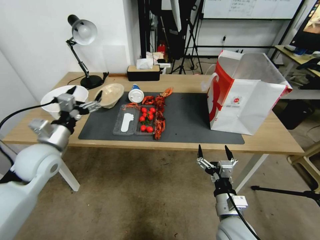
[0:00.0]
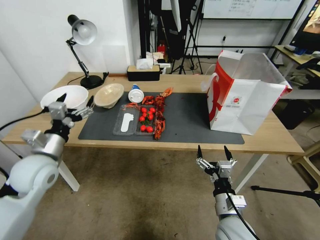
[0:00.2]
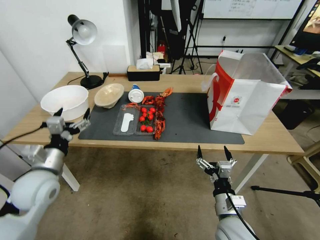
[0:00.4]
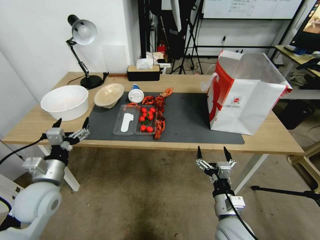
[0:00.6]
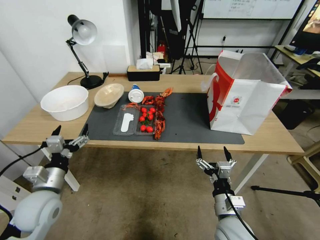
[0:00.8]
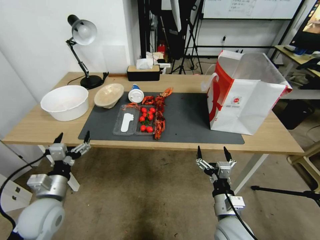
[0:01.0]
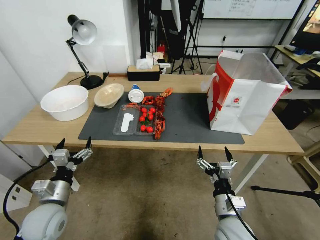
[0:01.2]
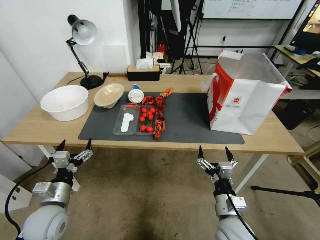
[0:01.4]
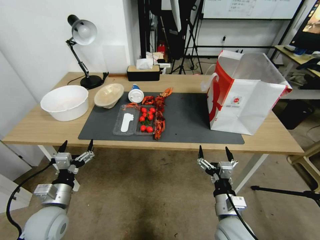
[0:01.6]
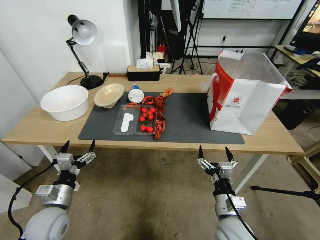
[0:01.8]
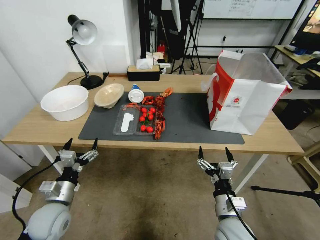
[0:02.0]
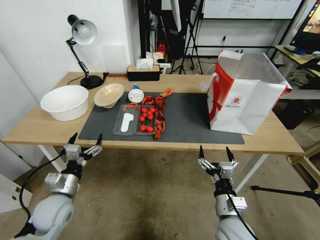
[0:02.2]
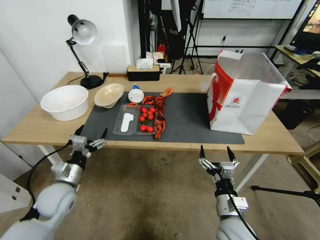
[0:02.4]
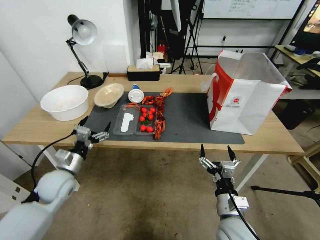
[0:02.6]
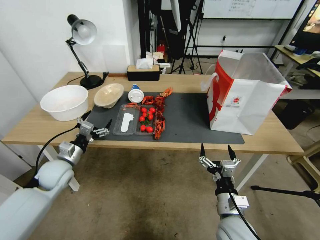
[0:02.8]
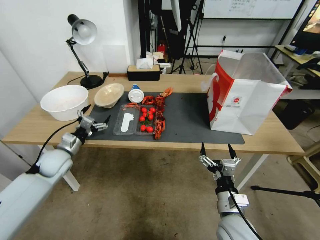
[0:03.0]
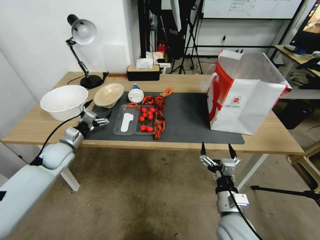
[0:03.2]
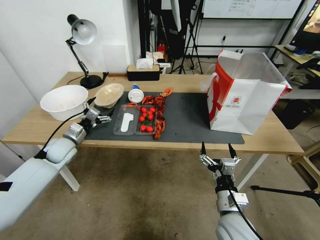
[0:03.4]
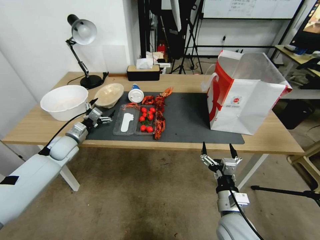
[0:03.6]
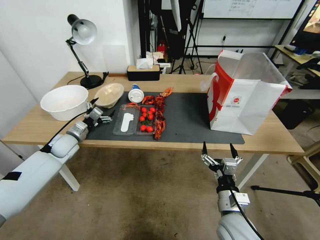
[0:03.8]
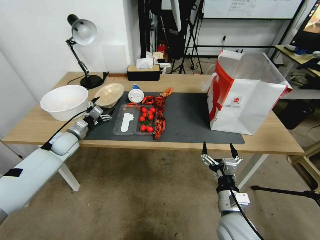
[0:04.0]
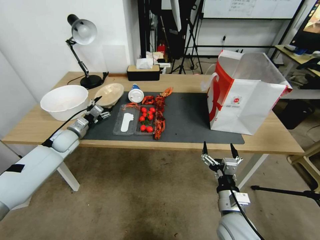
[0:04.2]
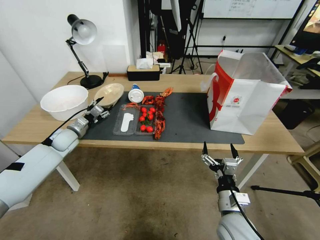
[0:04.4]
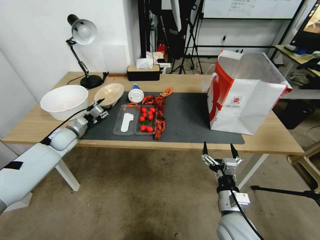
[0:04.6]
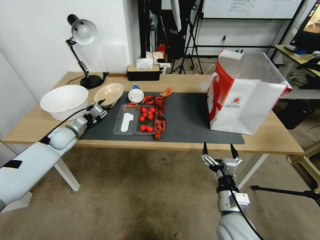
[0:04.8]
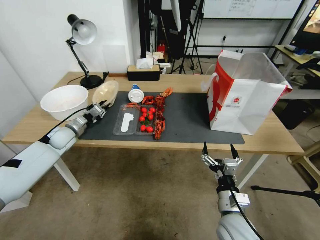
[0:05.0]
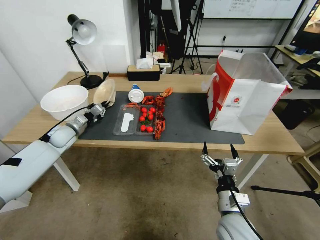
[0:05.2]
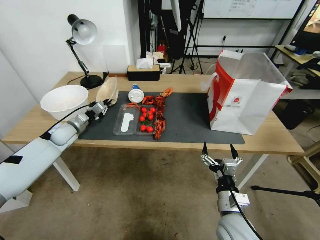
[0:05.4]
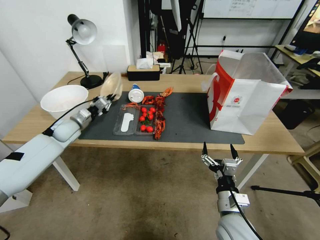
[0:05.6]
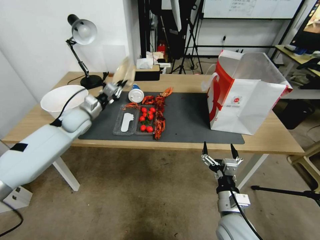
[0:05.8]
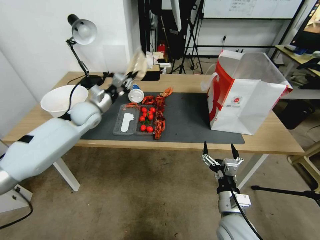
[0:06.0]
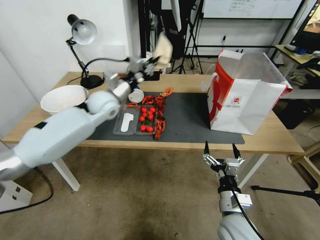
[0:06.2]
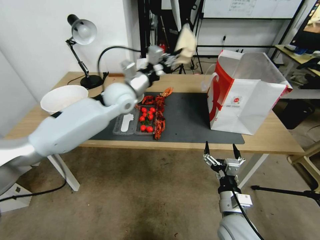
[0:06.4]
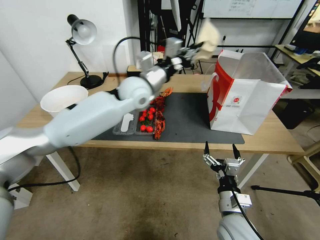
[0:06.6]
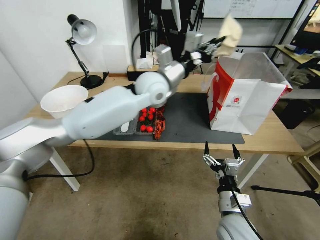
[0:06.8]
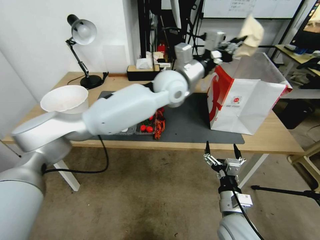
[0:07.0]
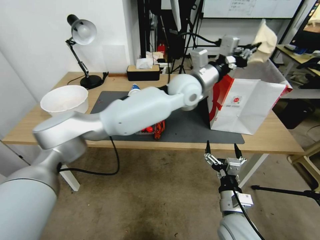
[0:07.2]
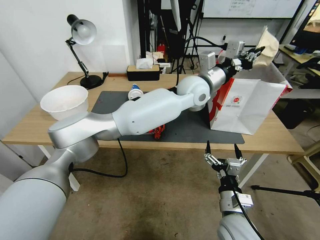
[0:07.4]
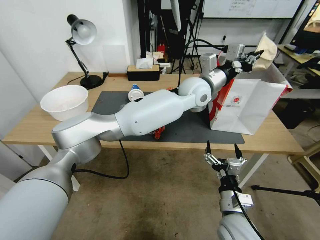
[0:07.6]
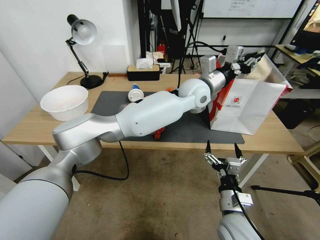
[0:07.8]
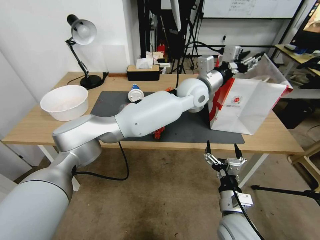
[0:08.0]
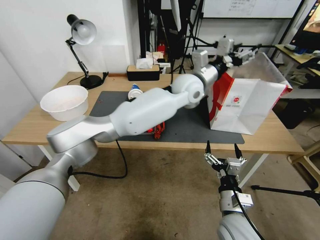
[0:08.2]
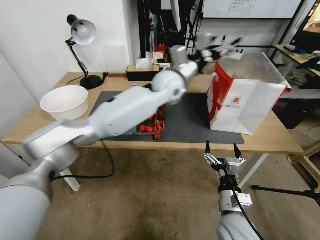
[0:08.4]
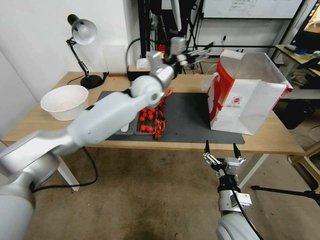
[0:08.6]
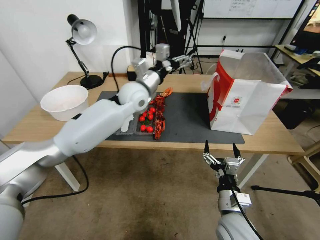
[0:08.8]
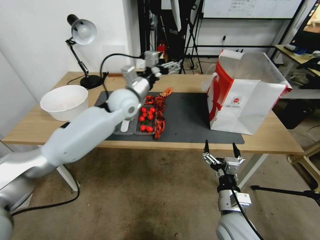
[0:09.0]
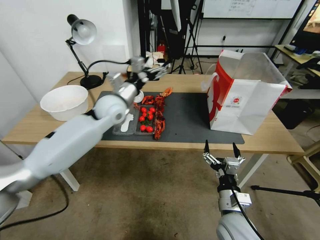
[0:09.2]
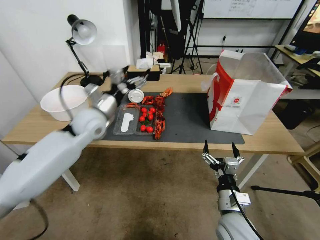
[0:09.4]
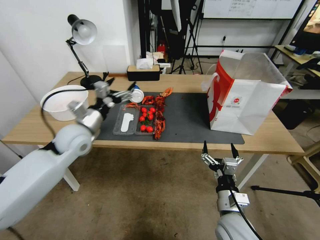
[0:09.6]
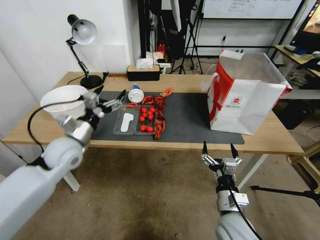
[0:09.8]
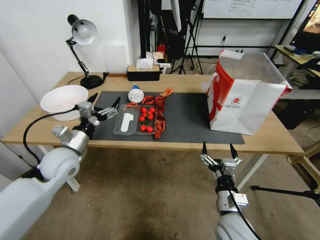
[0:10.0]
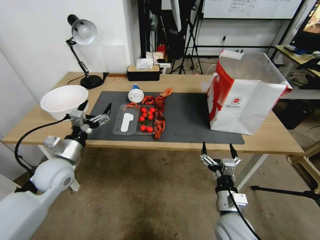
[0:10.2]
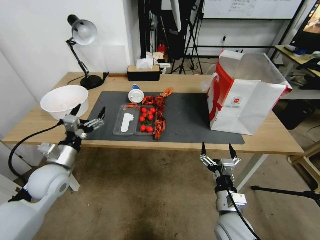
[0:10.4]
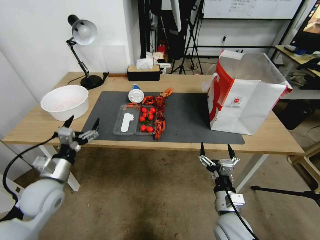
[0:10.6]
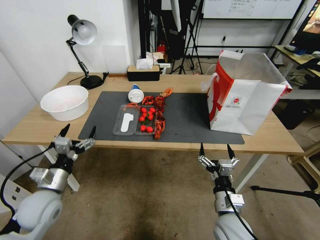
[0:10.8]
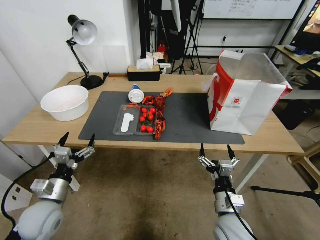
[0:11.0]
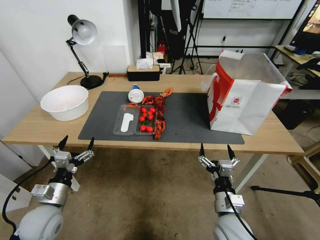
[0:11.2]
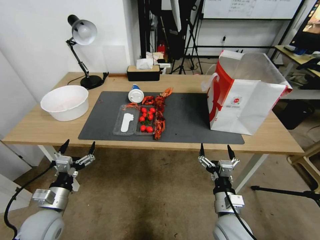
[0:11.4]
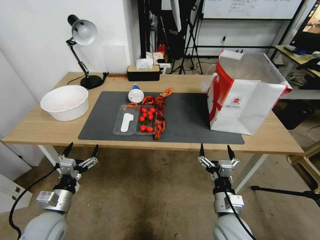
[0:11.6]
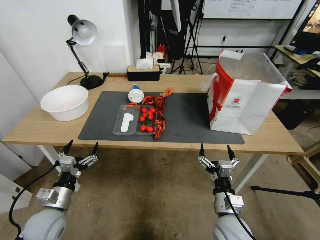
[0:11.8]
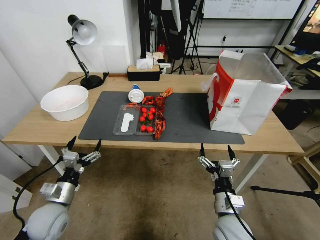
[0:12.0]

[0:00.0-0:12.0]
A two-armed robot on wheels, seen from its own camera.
0:00.0 to 0:01.6: The left gripper travels downward and backward by approximately 20 cm.
0:01.6 to 0:03.0: The left gripper travels forward by some 15 cm.
0:03.0 to 0:04.4: The left gripper goes about 15 cm forward, and closes its fingers.
0:04.4 to 0:06.0: The left gripper goes some 20 cm to the right and upward, and closes.
0:06.0 to 0:07.6: The left gripper heads to the right, covering approximately 35 cm.
0:07.6 to 0:09.0: The left gripper heads to the left, covering roughly 25 cm, and opens.
0:09.0 to 0:10.4: The left gripper moves to the left, backward and downward, about 30 cm.
0:10.4 to 0:12.0: The left gripper shifts approximately 10 cm downward and backward.

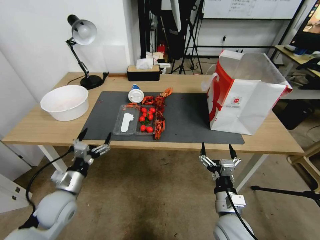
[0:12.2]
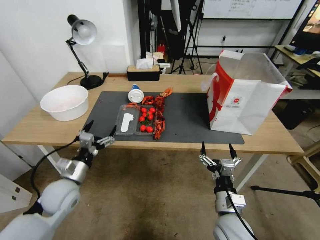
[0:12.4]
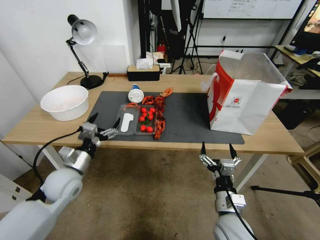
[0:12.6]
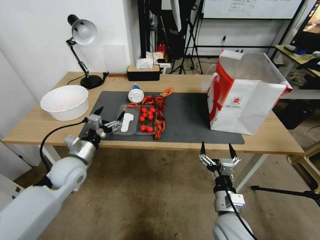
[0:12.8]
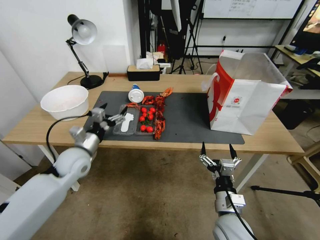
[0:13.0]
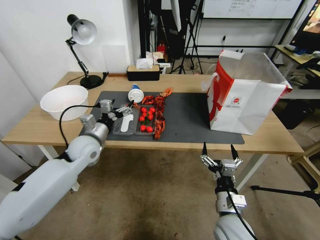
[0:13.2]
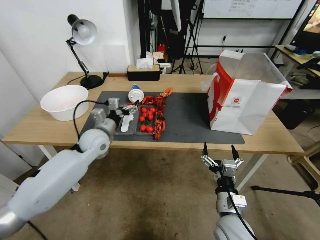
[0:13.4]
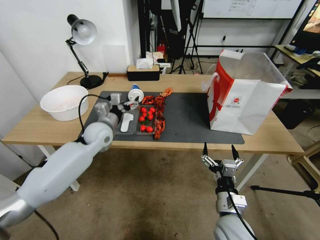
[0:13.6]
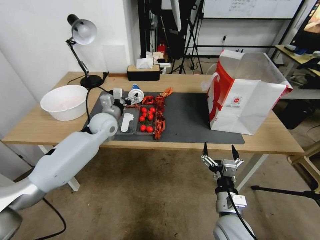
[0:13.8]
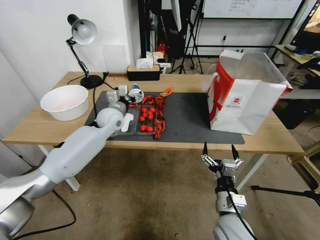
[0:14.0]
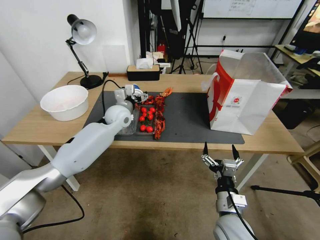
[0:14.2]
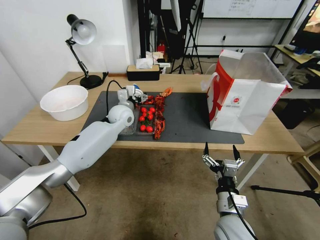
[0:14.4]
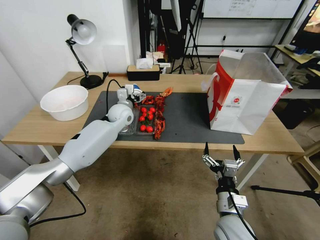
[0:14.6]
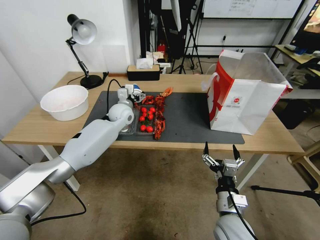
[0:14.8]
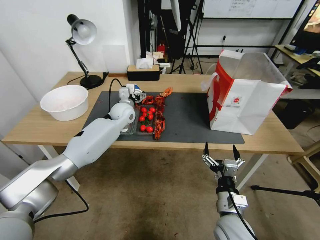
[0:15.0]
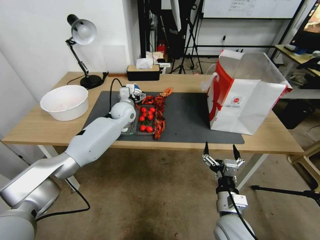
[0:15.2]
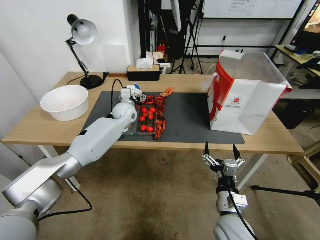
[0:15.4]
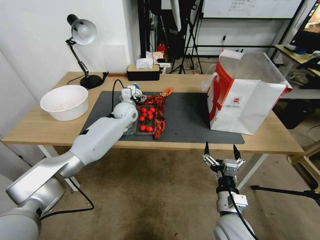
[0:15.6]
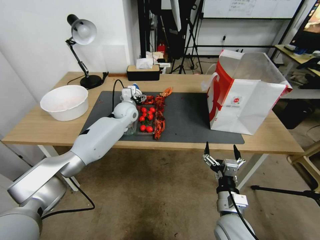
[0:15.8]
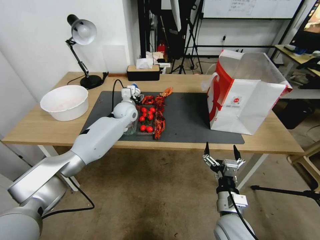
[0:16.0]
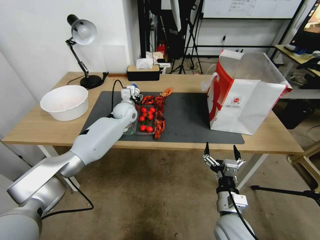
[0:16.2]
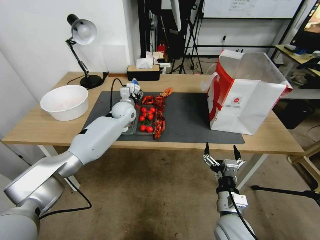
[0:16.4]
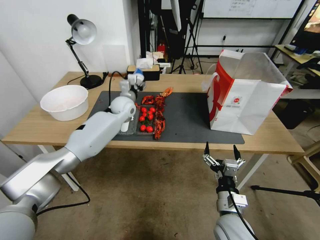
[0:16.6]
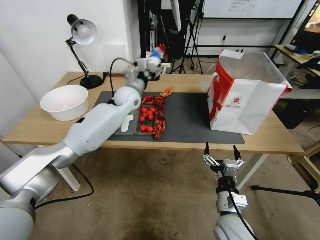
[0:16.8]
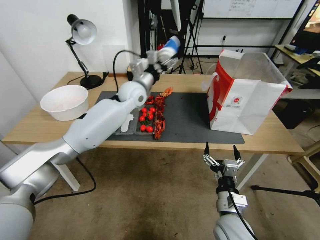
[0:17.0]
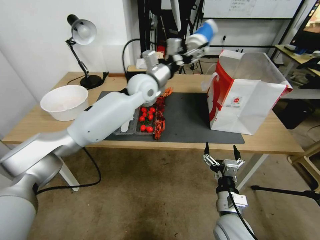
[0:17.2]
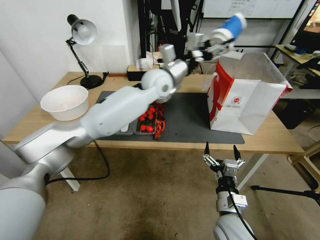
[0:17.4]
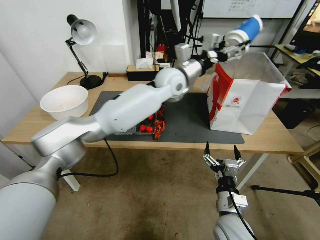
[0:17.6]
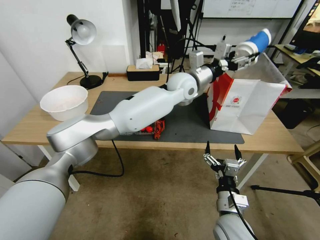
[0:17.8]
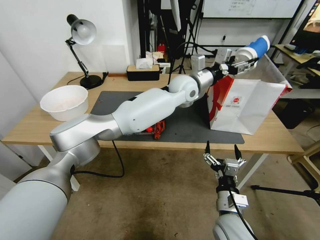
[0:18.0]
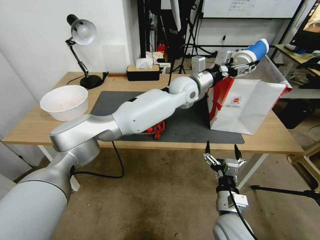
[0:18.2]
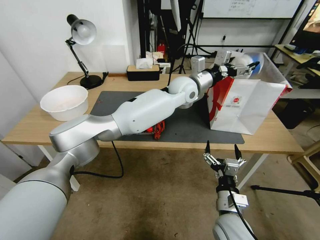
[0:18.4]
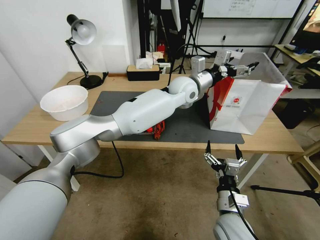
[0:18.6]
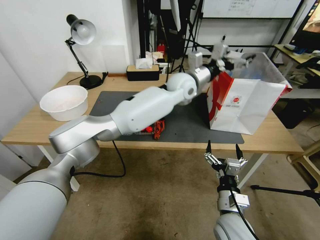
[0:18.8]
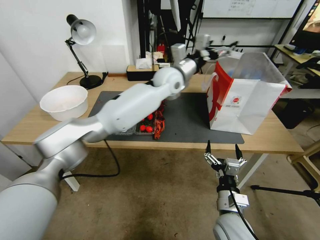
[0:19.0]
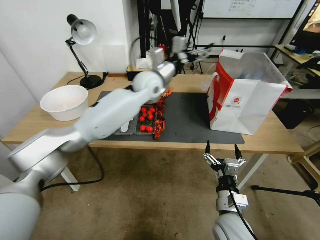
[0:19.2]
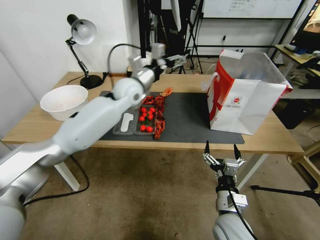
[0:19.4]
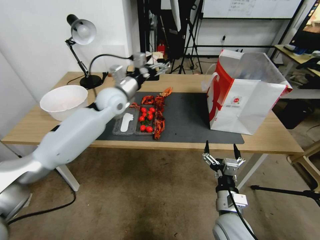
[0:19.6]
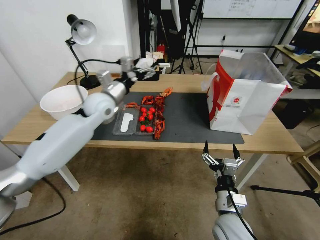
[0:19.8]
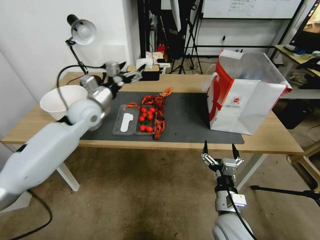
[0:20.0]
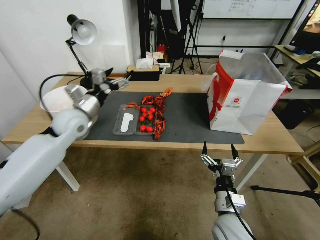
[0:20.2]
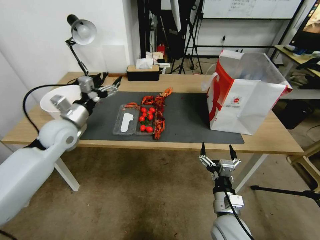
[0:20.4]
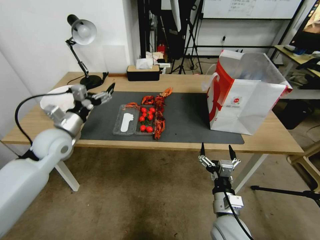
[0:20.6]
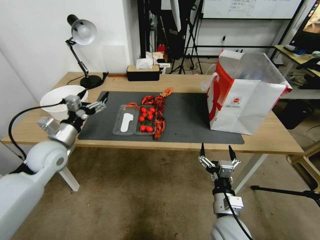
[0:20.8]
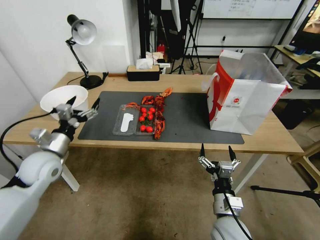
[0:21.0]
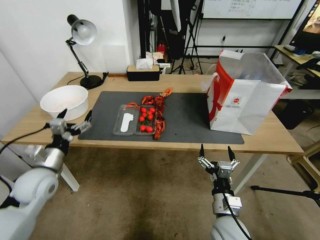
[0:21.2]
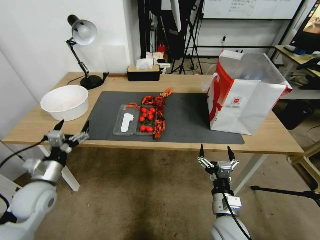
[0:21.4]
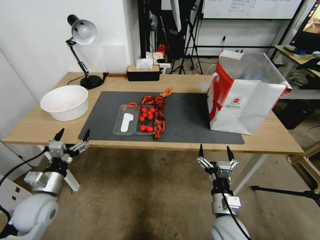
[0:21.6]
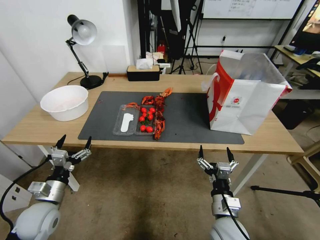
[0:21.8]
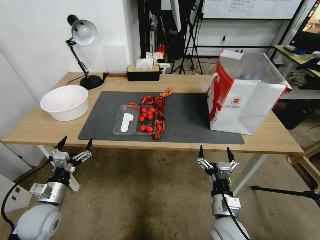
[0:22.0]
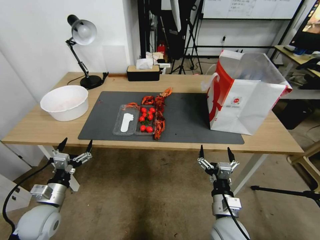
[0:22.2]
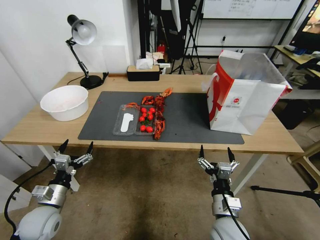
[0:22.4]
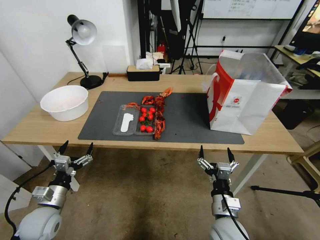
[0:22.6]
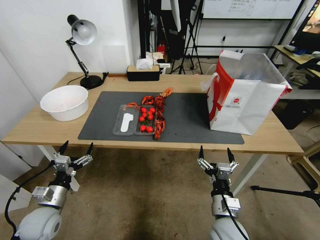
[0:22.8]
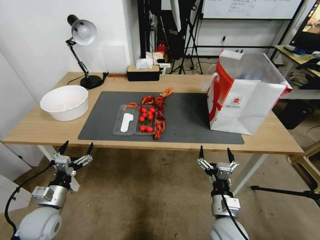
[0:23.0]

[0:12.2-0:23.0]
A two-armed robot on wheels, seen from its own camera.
0:12.2 to 0:13.8: The left gripper moves forward, upward and to the right, some 30 cm.
0:13.8 to 0:15.2: The left gripper shifts about 10 cm forward and to the right.
0:15.2 to 0:16.8: The left gripper closes its fingers.
0:16.8 to 0:18.4: The left gripper travels to the right and upward by approximately 25 cm.
0:18.4 to 0:20.0: The left gripper shifts some 30 cm to the left.
0:20.0 to 0:21.4: The left gripper heads backward, downward and to the left, covering some 30 cm.
0:21.4 to 0:23.0: The left gripper heads downward, covering approximately 5 cm.
